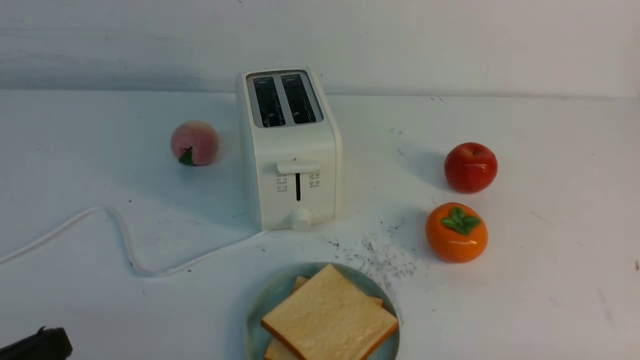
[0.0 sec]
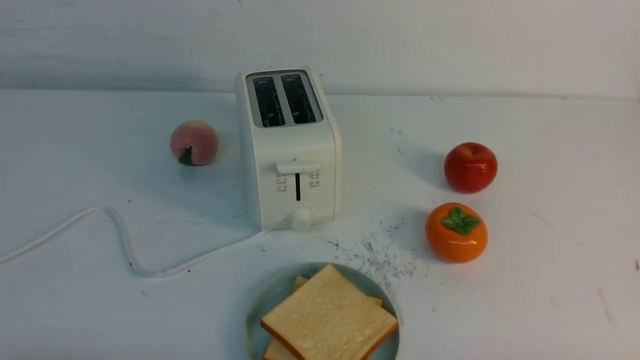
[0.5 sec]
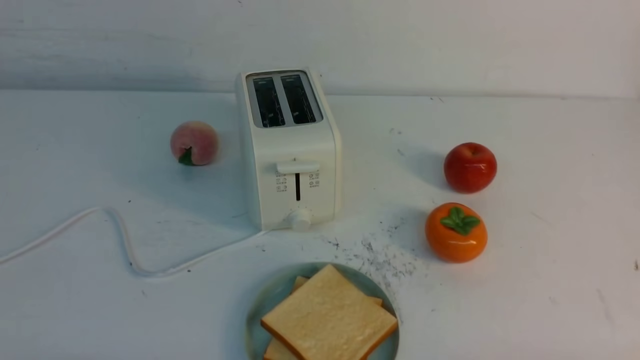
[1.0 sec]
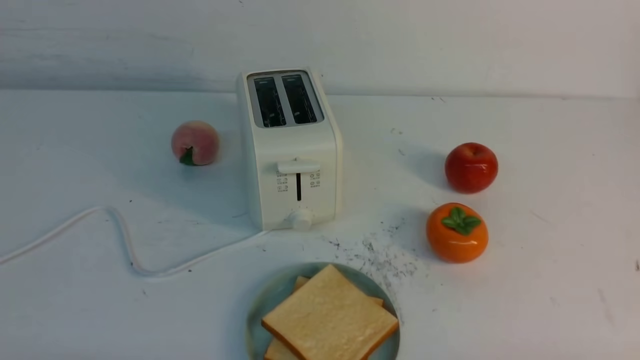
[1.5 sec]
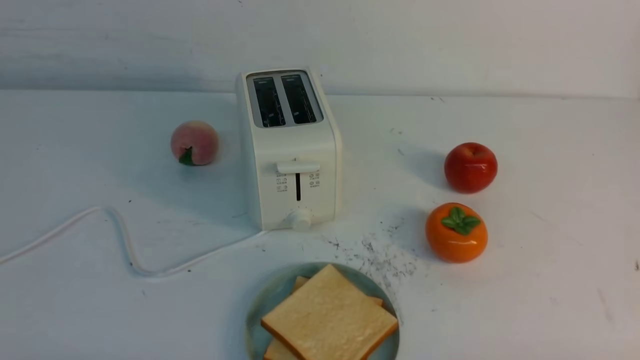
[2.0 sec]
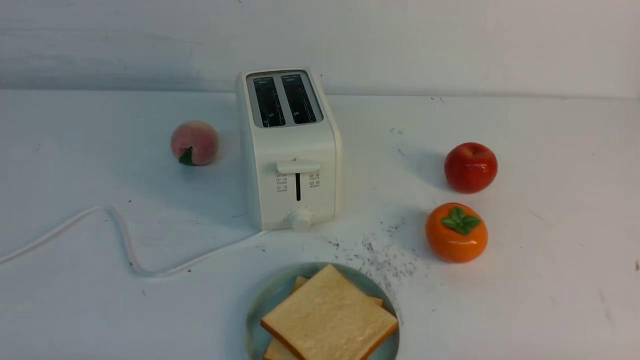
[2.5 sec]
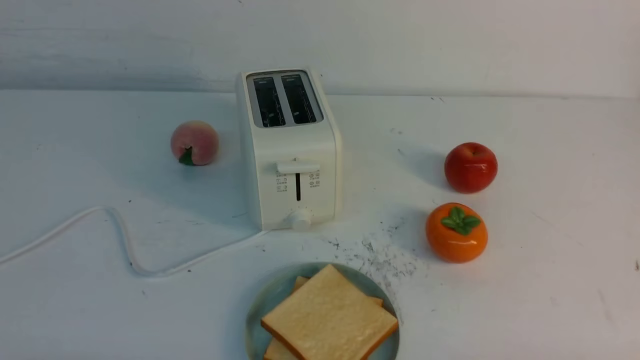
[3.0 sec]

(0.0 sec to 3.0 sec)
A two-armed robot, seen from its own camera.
Task of the whole recording: take toasted bread from bread machine on white table place on plate.
0.0 sec - 1.5 sec: The left gripper travels downward by roughly 5 cm.
1.5 sec - 3.0 sec: Both grippers stay put.
